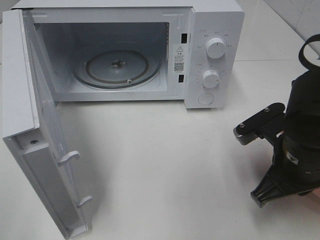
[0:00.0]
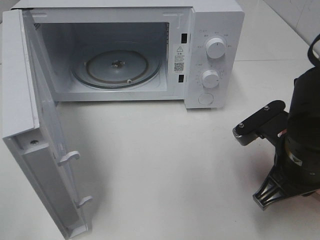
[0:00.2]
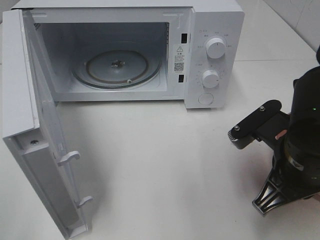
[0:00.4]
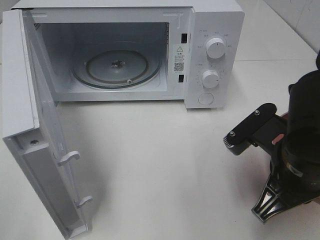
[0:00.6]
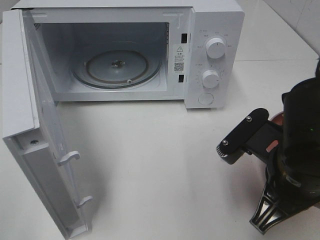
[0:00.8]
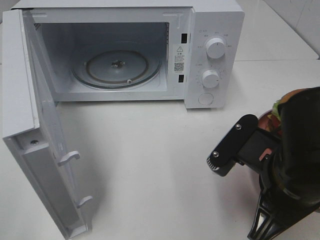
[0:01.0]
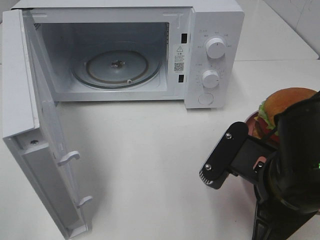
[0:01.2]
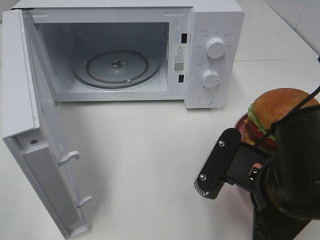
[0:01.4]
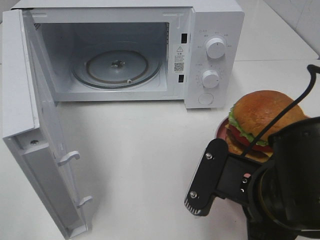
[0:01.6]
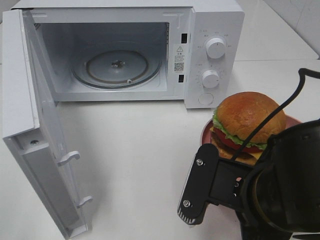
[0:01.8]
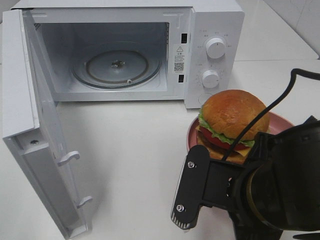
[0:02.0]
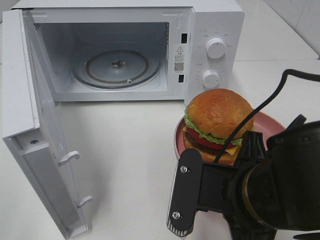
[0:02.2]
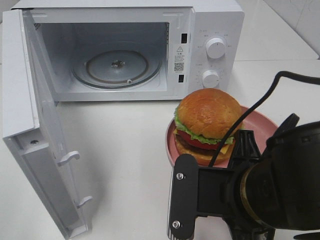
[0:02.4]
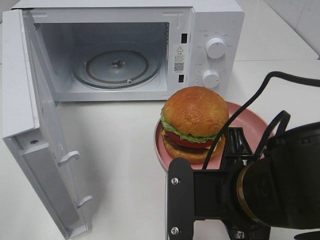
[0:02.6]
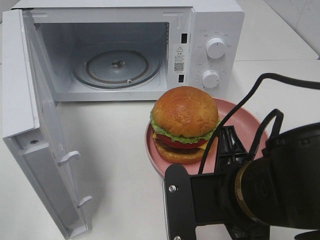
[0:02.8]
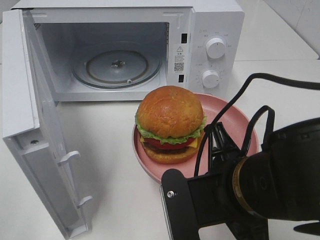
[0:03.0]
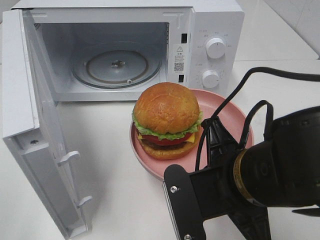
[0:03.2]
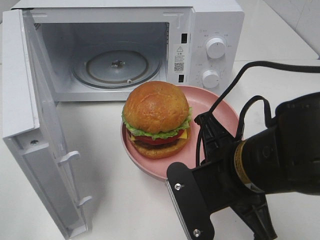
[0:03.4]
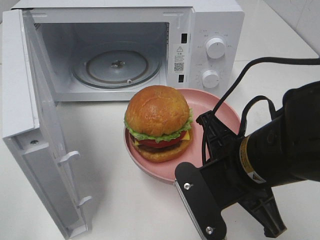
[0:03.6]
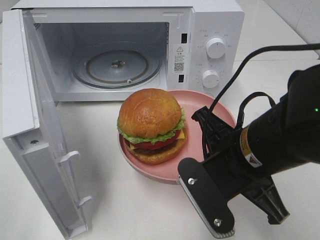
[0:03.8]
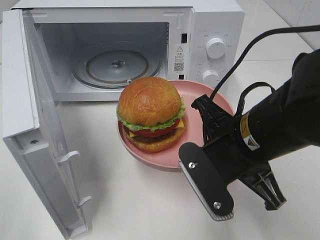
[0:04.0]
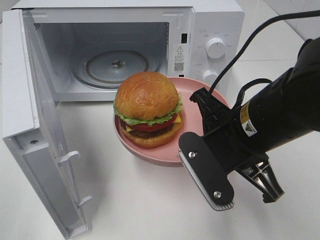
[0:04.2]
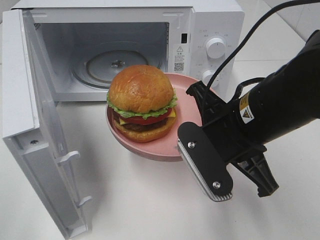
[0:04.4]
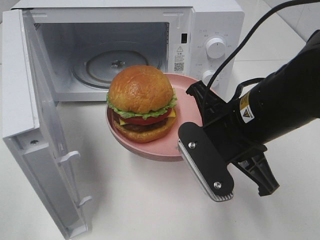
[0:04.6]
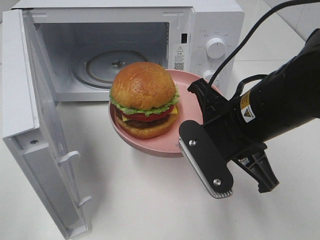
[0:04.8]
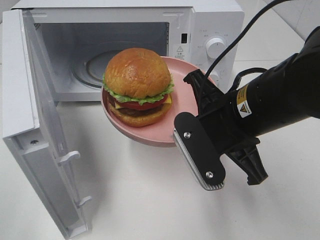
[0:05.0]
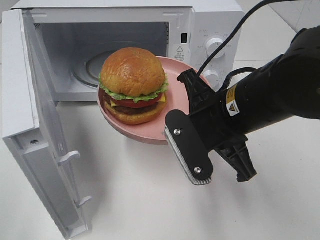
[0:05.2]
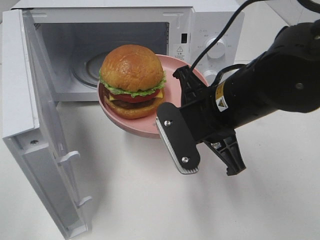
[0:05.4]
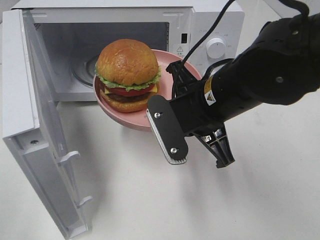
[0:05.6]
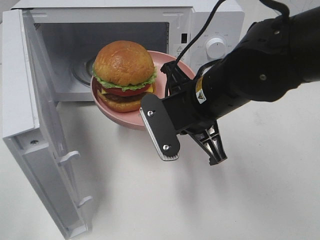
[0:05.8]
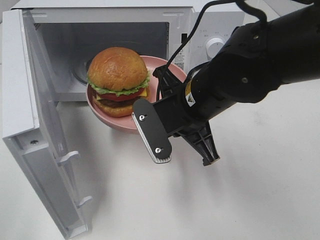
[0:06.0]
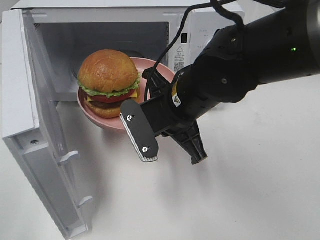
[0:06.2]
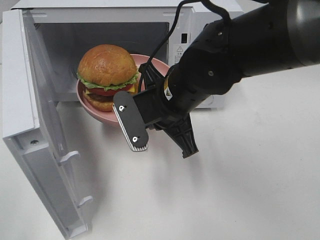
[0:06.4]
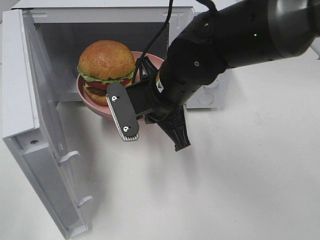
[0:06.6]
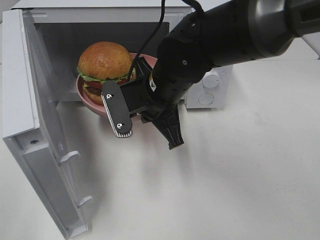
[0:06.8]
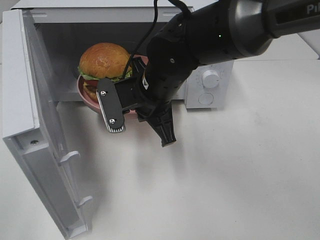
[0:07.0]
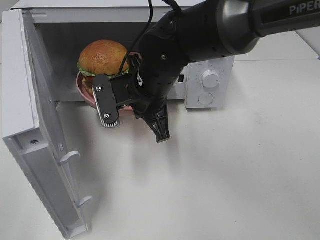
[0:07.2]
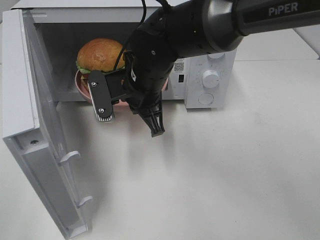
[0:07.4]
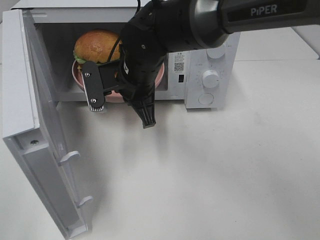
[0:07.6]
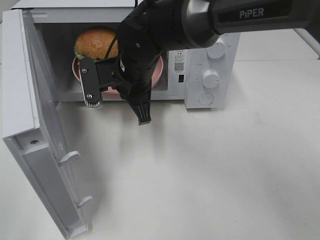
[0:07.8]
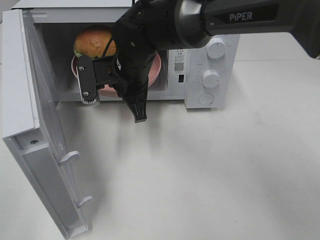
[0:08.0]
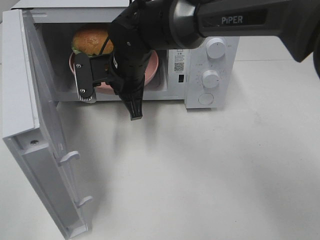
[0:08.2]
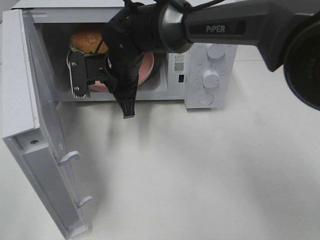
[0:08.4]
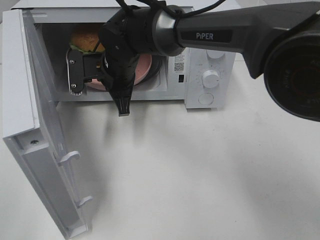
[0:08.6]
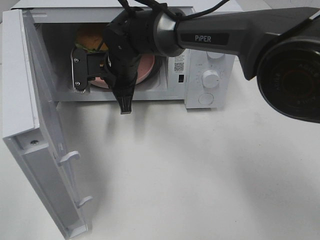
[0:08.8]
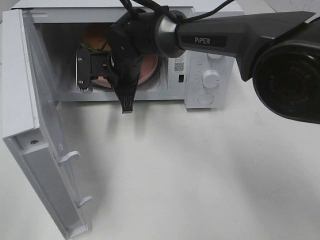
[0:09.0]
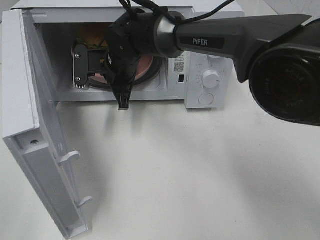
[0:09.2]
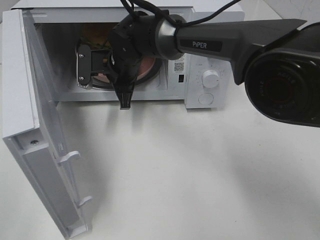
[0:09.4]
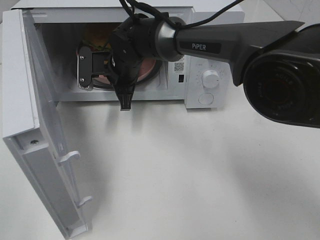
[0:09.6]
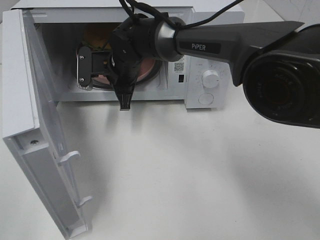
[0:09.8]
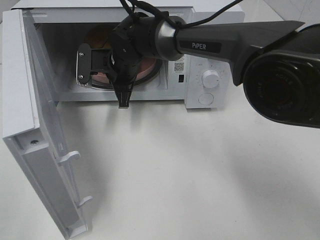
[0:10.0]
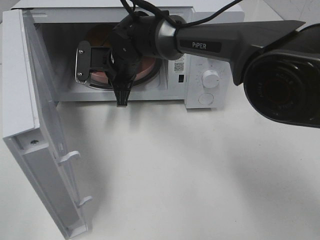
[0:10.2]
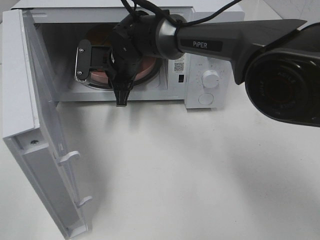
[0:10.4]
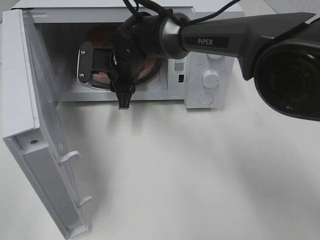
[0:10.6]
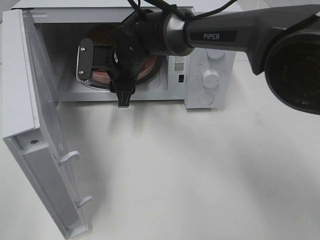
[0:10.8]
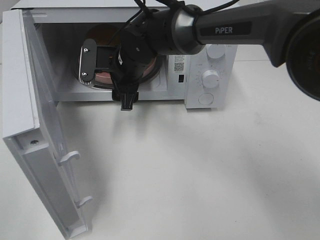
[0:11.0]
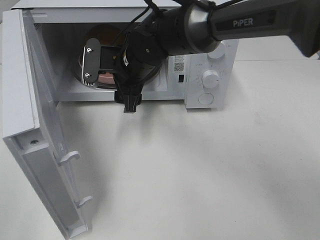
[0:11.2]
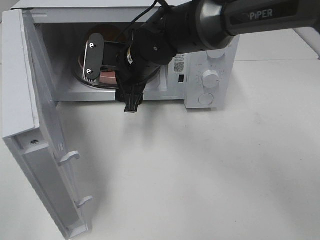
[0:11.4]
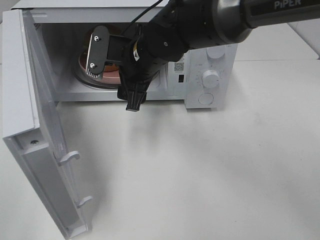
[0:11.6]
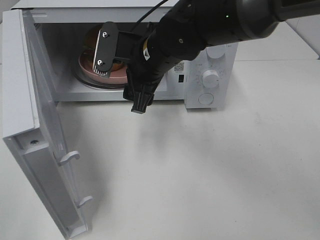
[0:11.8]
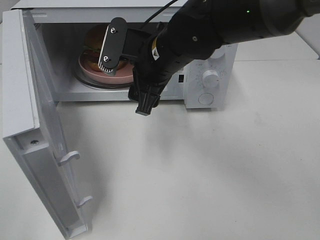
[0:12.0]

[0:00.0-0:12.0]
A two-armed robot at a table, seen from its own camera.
Task of the whole recording: Heat the burger.
Step, 0:00.0 to 0:10.2: Right hand: place the plate in the microwave.
0:00.0 to 0:01.6: The right gripper is displaced backward and to the left by about 10 cm.
0:03.0 to 0:04.4: The right gripper is displaced forward by about 5 cm.
0:04.4 to 0:06.0: The right gripper travels forward and to the left by roughly 5 cm.
0:06.0 to 0:07.6: The right gripper moves forward and to the left, roughly 10 cm.
0:07.6 to 0:09.0: The right gripper moves forward, roughly 5 cm.
0:09.0 to 0:10.4: The right gripper opens its fingers.
0:10.4 to 0:12.0: The right gripper shifts some 15 cm backward, to the right and upward, and opens its fingers.

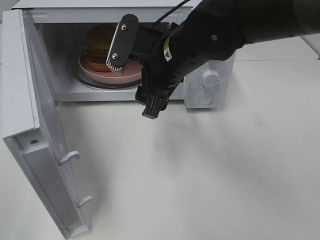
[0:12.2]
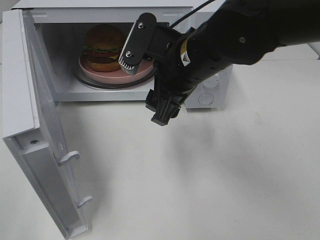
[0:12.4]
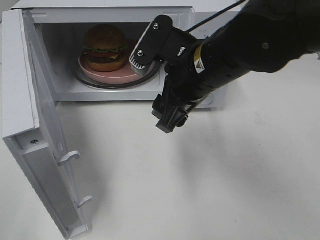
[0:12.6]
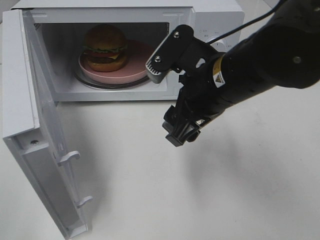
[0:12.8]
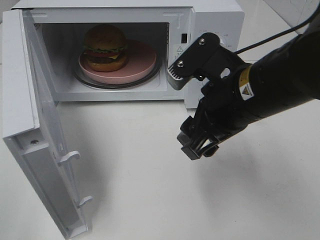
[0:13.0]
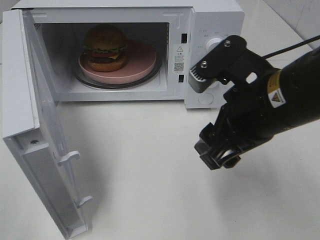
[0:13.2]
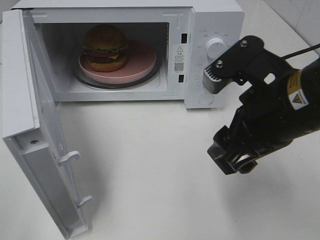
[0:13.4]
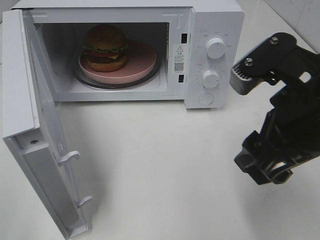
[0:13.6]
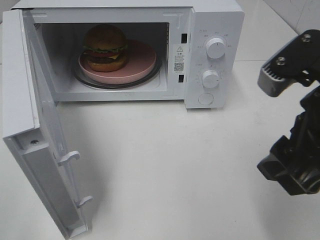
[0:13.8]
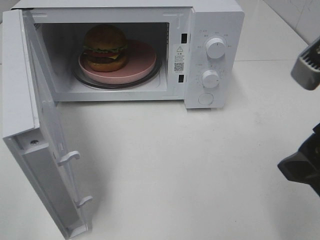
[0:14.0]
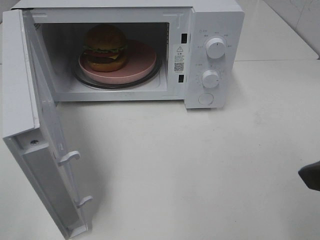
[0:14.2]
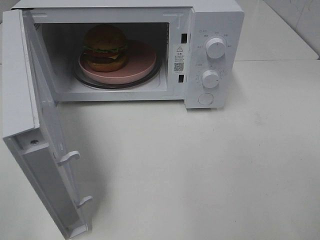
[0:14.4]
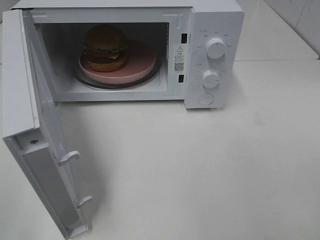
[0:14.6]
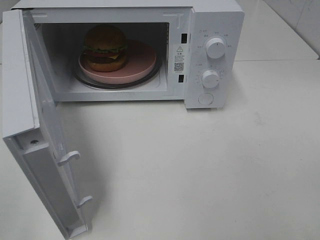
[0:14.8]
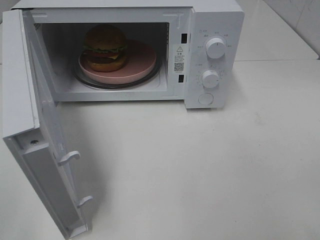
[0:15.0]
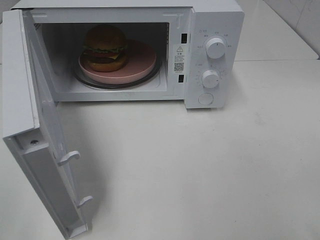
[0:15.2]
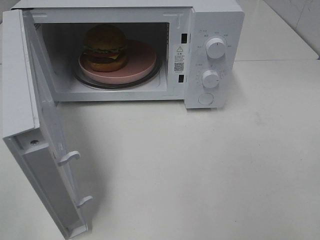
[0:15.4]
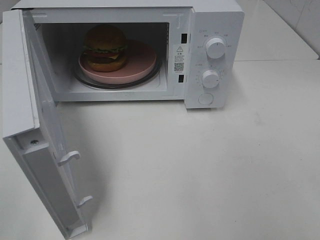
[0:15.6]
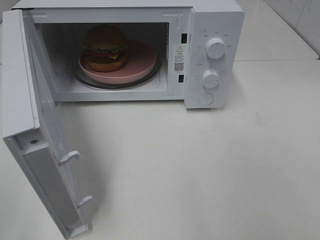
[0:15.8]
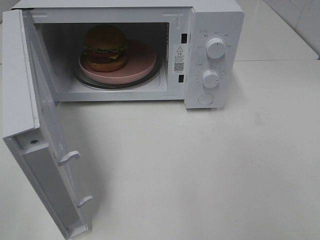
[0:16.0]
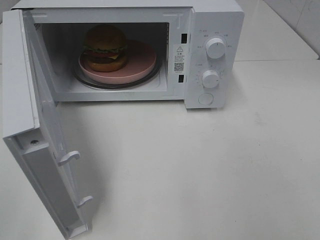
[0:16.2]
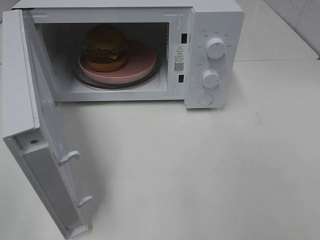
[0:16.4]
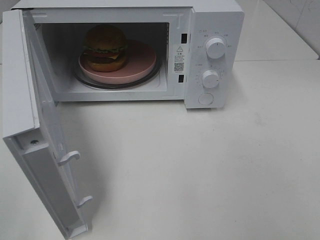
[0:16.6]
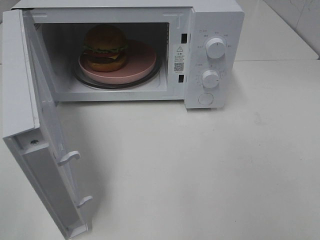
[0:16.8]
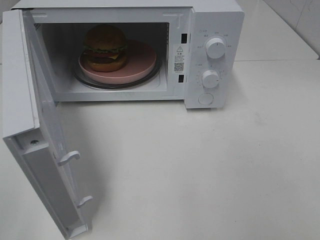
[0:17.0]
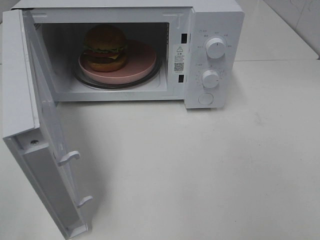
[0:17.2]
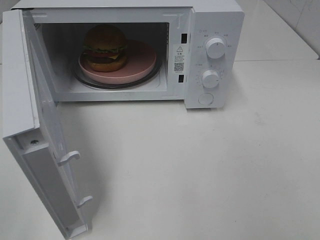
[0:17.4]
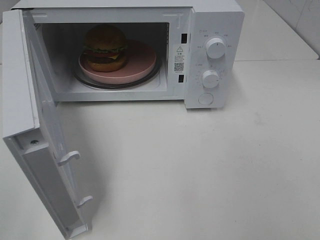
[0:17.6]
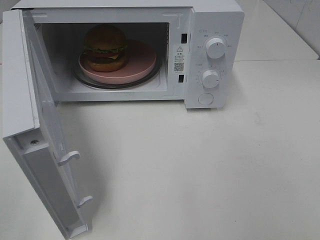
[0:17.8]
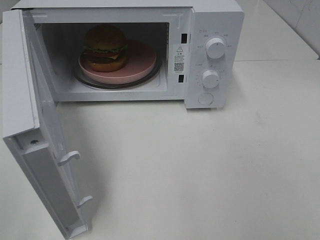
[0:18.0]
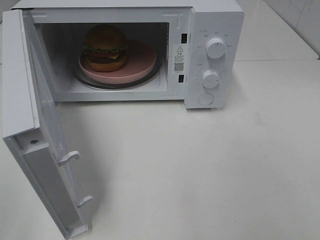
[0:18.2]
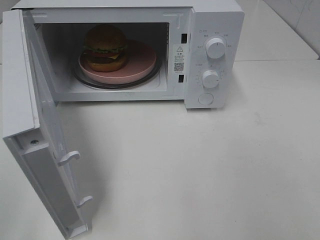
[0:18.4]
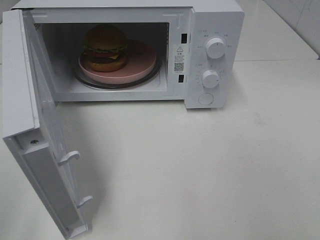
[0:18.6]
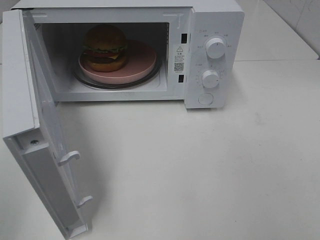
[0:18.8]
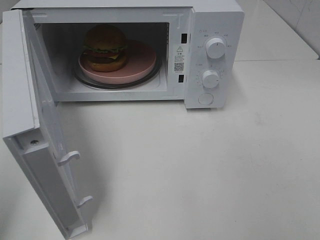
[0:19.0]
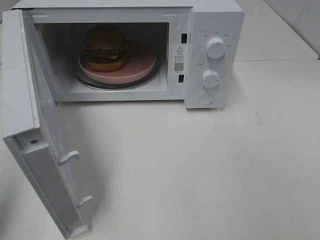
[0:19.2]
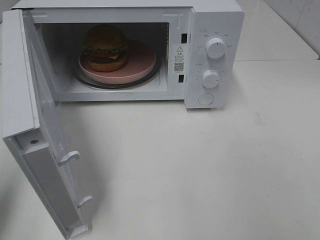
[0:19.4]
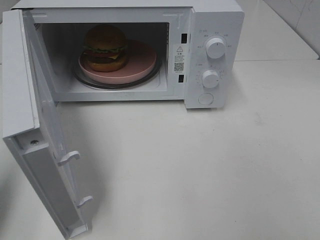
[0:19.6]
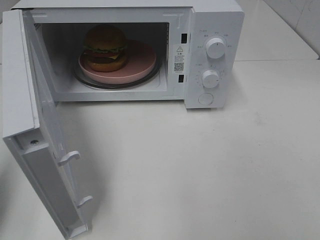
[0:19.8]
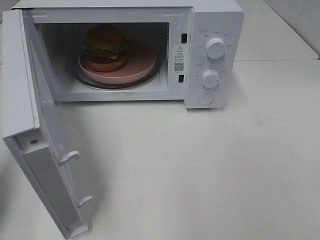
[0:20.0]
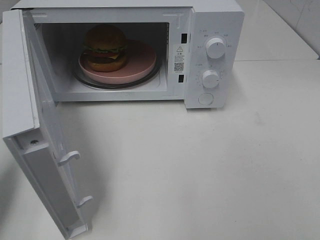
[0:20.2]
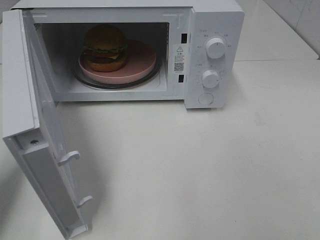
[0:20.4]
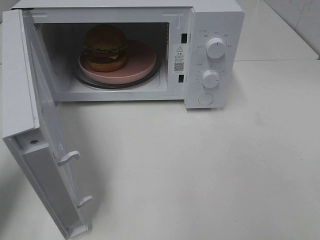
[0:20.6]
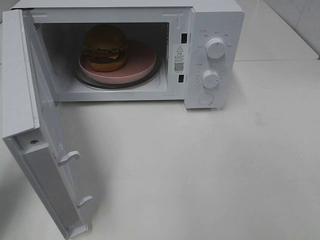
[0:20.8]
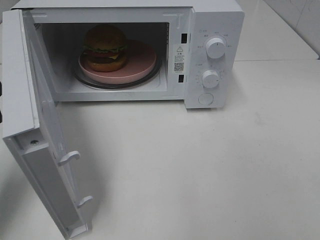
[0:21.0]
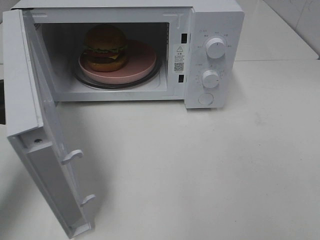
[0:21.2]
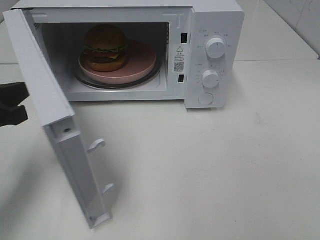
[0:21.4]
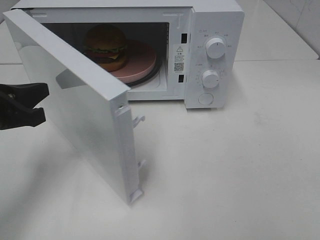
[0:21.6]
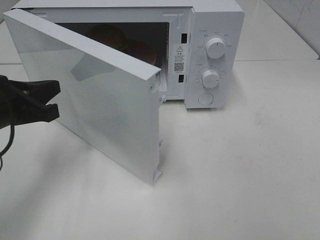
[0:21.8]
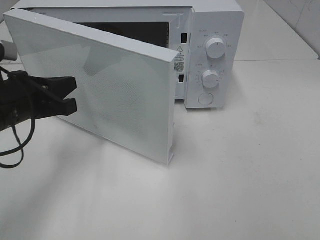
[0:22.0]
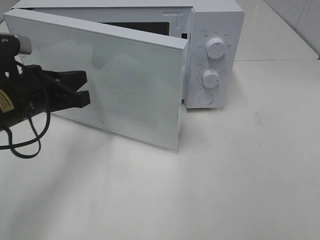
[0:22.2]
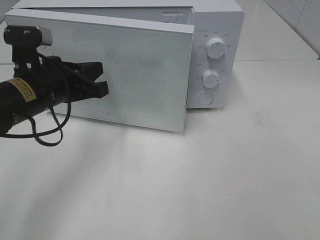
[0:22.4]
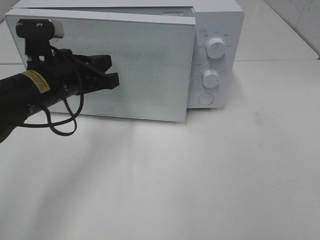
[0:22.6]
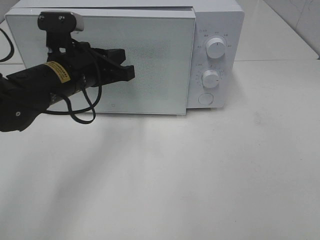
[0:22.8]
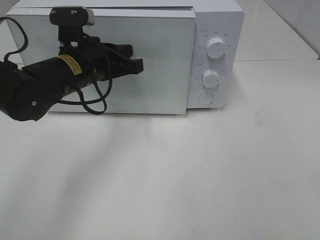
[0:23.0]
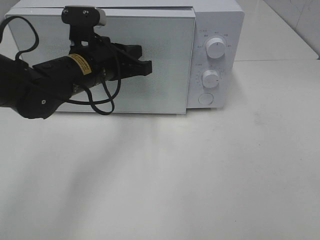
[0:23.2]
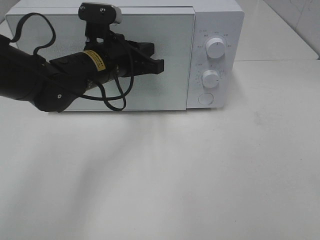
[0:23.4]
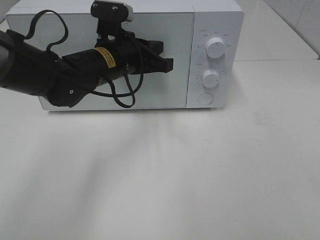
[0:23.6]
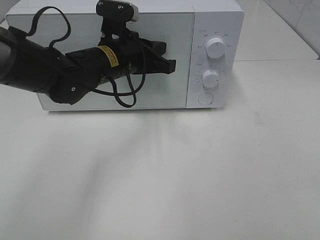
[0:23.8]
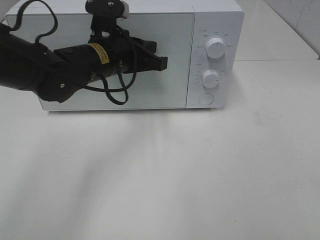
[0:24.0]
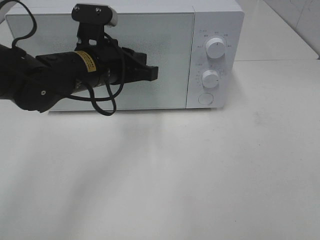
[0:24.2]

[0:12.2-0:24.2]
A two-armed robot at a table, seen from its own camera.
Task of the whole recording: Heat the burger.
Step, 0:12.2 to 0:24.0: Left hand: close the microwave door.
0:12.2 to 0:13.8: The right gripper is displaced backward and to the right by roughly 20 cm.
0:13.8 to 0:15.2: The right gripper travels to the right and backward by approximately 10 cm.
0:16.6 to 0:18.2: The two grippers keep their place.
0:18.2 to 0:19.8: The left gripper goes approximately 15 cm forward, and closes its fingers.
0:19.8 to 0:21.2: The left gripper shifts approximately 10 cm forward, downward and to the right.
0:21.2 to 0:22.6: The left gripper moves to the right and forward, about 15 cm.
0:22.6 to 0:24.2: The left gripper is displaced to the right by some 5 cm.
